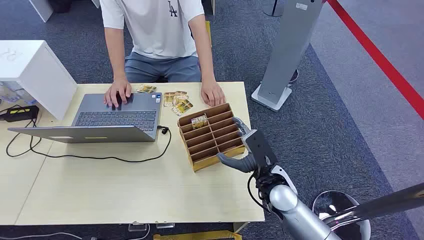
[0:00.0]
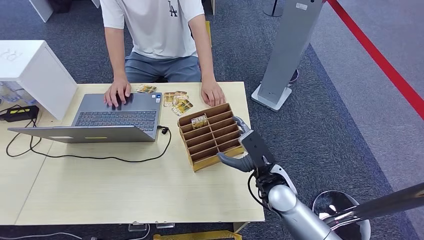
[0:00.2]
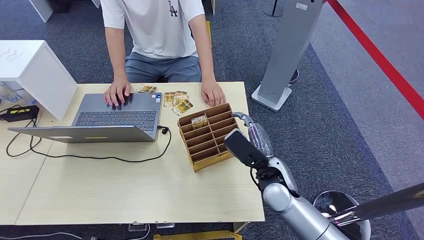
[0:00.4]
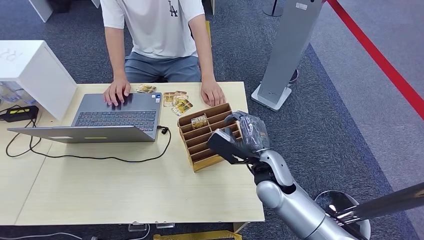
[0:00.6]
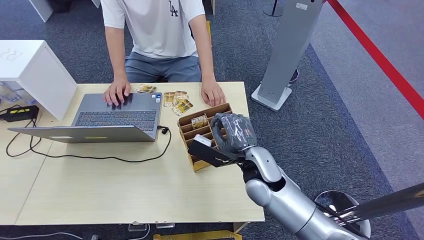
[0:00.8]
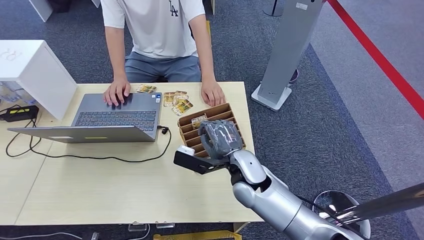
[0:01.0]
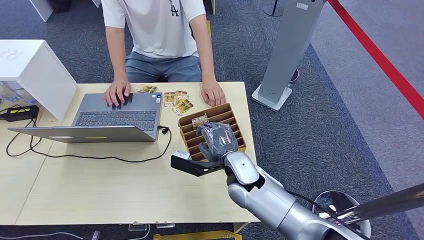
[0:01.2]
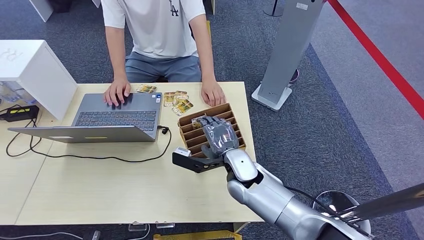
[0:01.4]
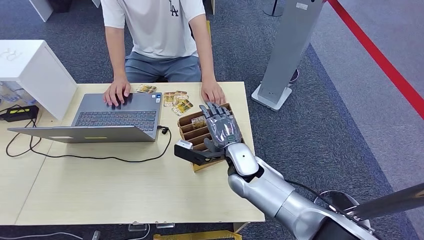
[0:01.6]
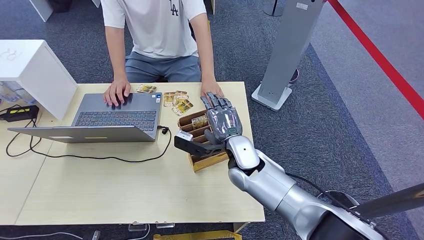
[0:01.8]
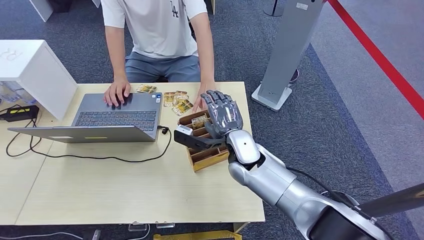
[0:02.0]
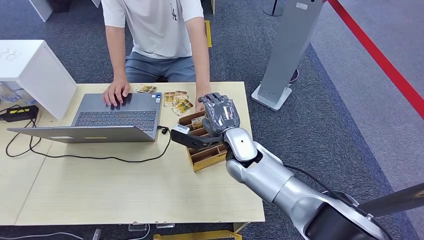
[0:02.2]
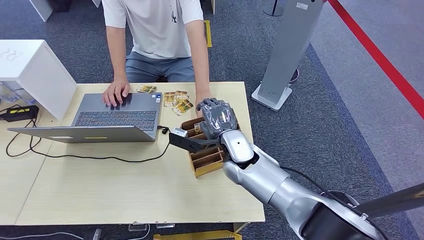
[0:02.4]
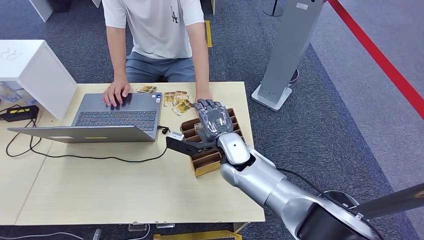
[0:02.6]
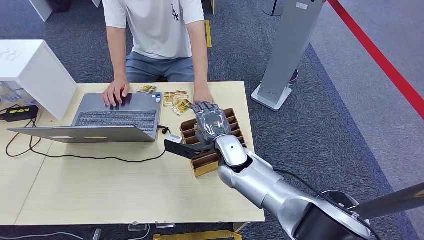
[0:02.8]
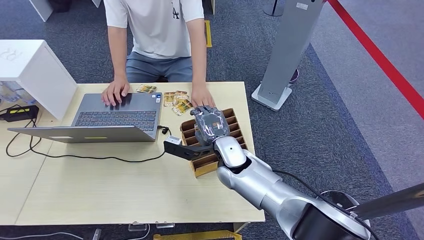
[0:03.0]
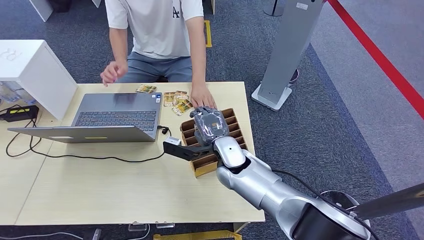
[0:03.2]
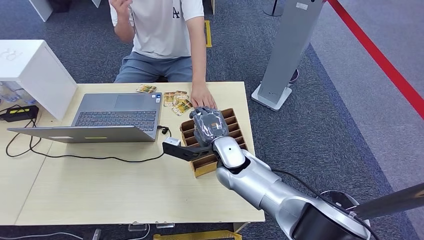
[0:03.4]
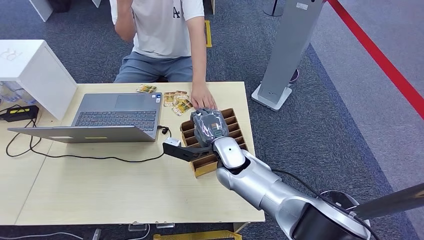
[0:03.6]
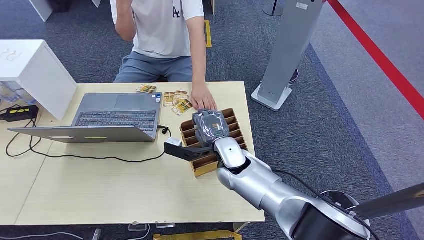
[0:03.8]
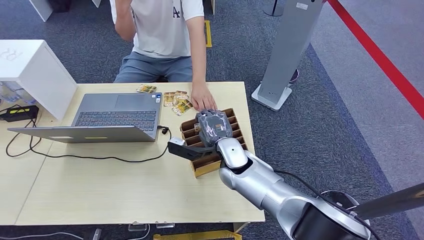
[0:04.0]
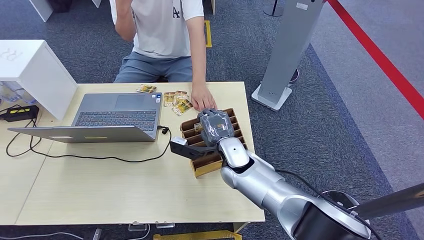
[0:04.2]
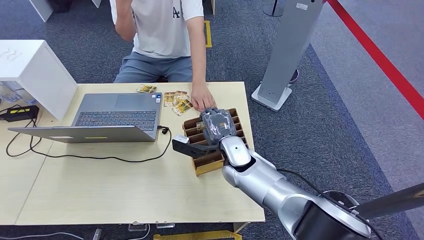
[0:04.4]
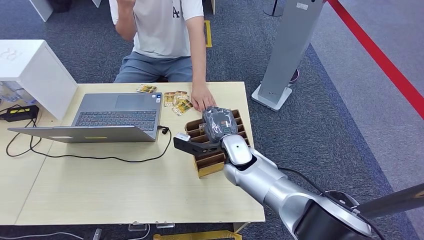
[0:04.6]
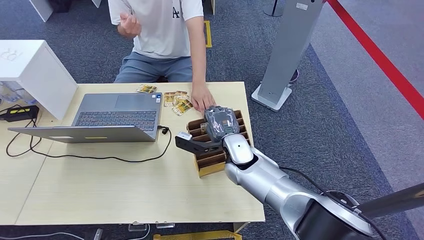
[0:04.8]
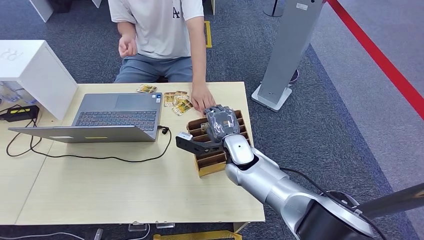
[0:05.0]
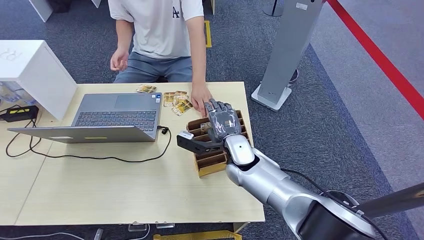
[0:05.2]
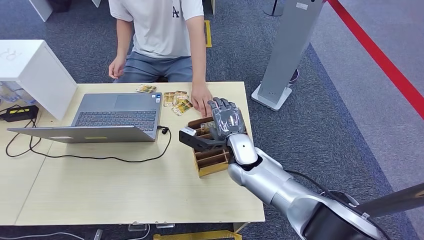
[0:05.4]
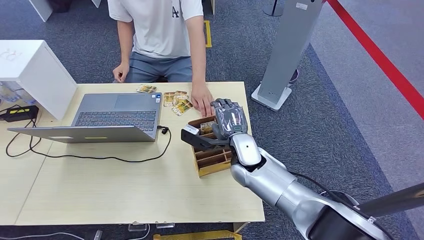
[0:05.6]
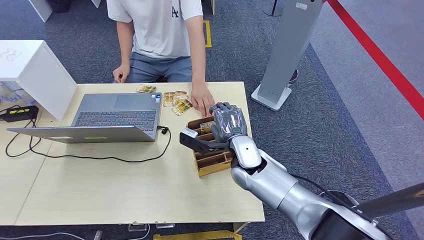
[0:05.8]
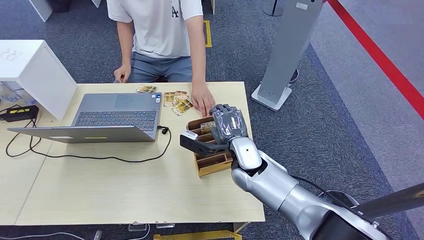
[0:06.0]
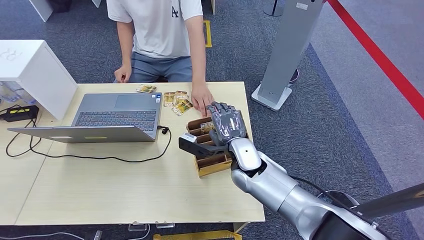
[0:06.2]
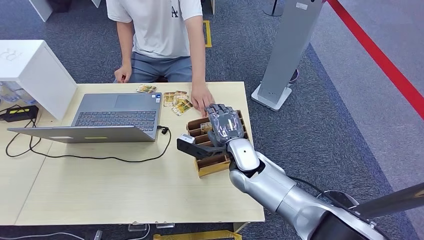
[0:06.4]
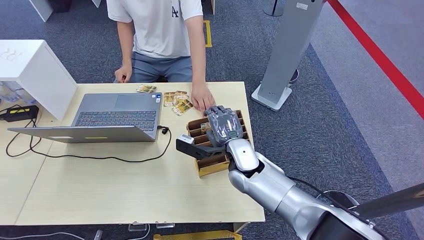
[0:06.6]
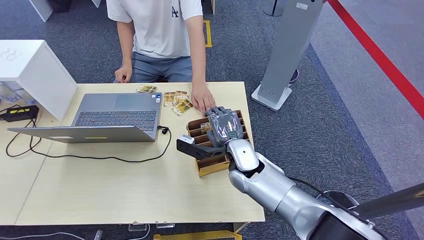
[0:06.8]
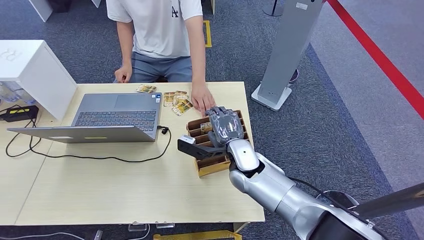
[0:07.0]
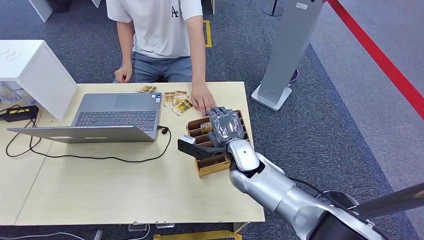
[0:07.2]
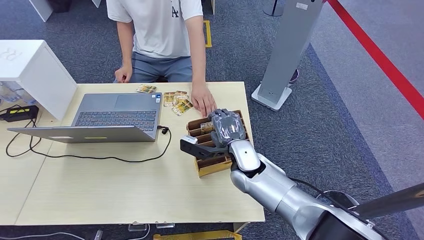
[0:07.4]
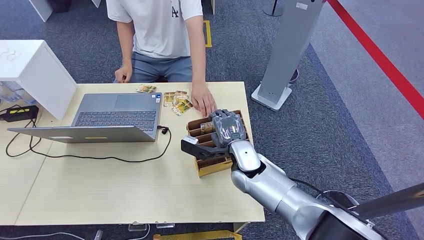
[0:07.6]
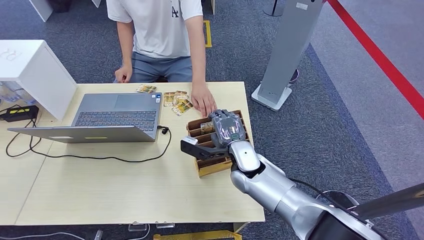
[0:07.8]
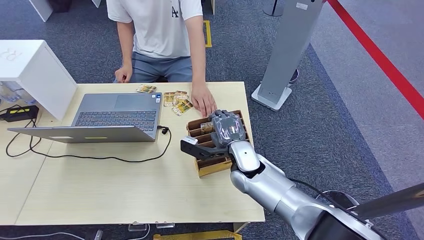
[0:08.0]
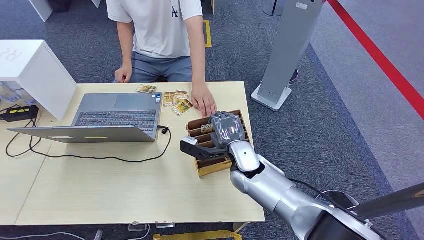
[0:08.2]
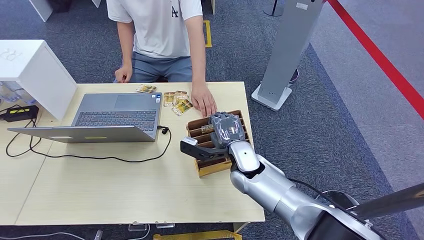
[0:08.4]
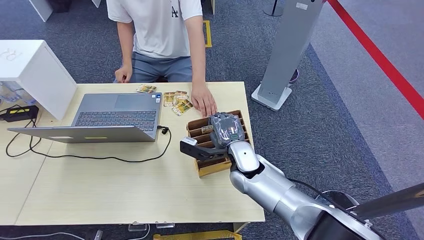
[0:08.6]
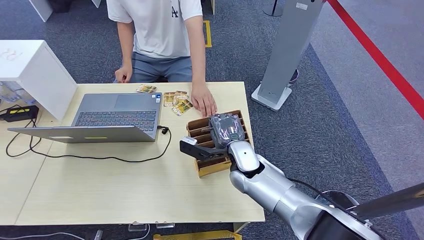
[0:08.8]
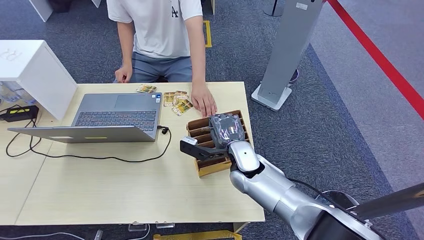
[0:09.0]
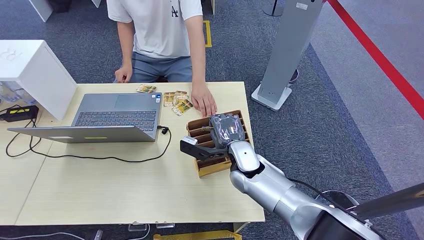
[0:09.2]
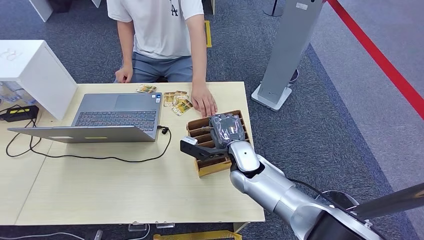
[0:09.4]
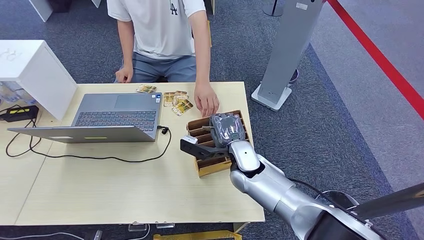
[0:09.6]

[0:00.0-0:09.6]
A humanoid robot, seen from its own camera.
0:01.6 to 0:08.0: The hands stay close to where they were, moving slightly.
0:08.0 to 0:09.6: Neither hand changes place.

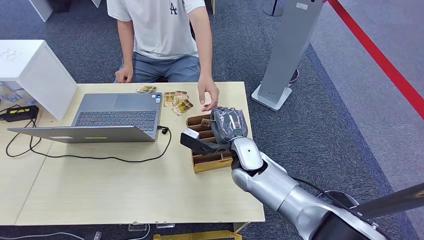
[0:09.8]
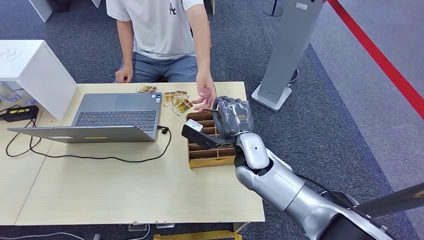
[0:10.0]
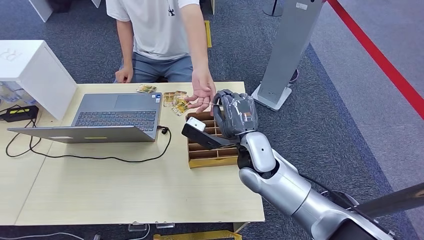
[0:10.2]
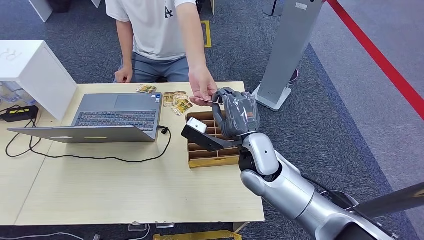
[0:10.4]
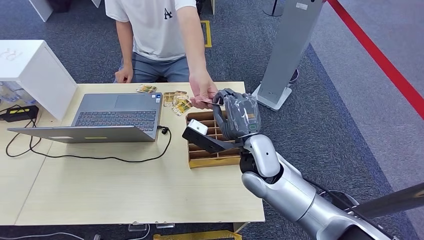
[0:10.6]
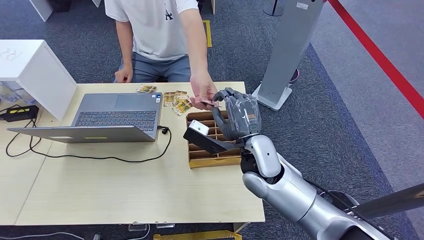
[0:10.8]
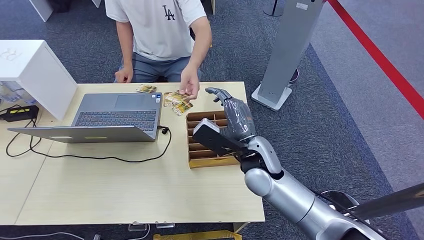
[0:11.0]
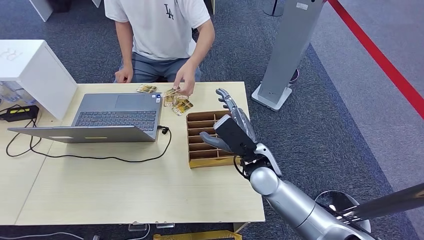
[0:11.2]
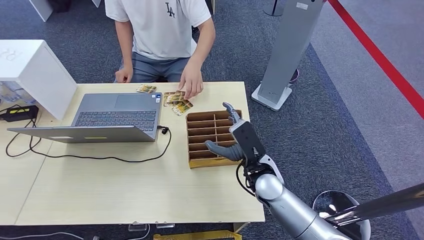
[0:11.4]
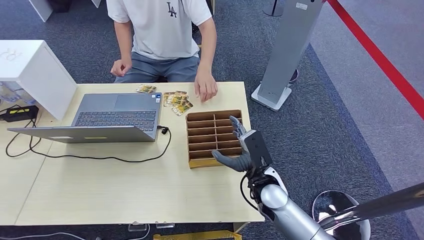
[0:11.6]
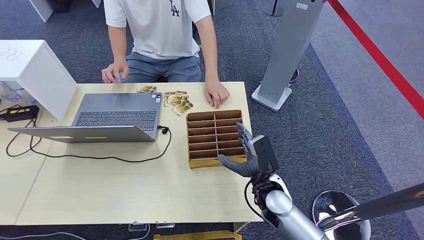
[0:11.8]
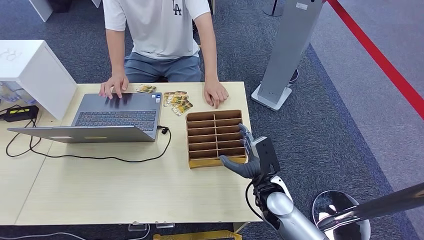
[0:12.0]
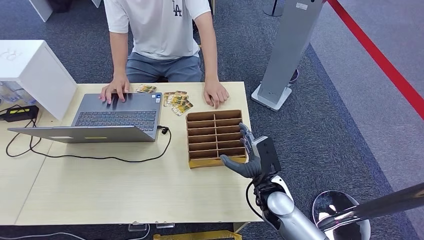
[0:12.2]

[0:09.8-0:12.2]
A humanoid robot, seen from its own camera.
Step, 0:10.0 to 0:12.2: Hand the key card to the target.
0:09.8 to 0:11.0: The right hand travels upward by some 5 cm.
0:11.0 to 0:12.2: The right hand moves downward and to the right, approximately 15 cm.
